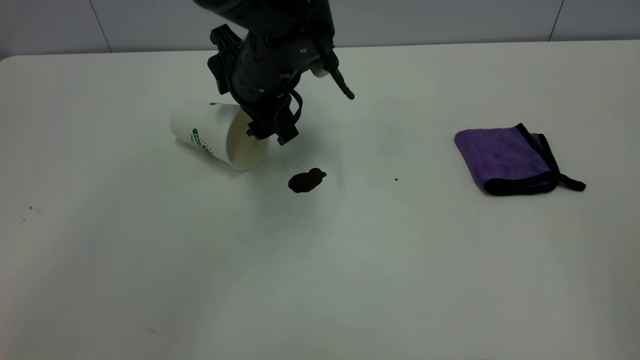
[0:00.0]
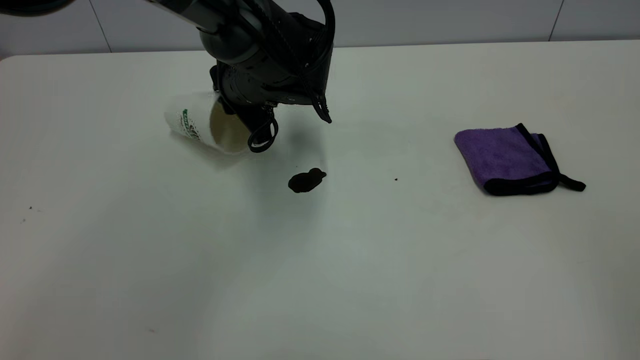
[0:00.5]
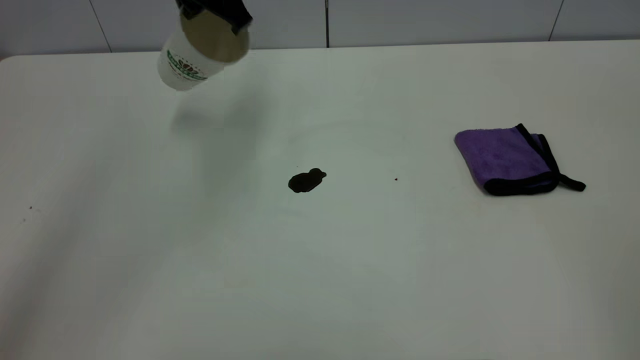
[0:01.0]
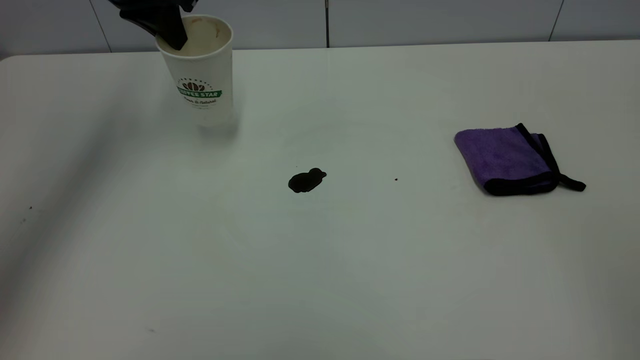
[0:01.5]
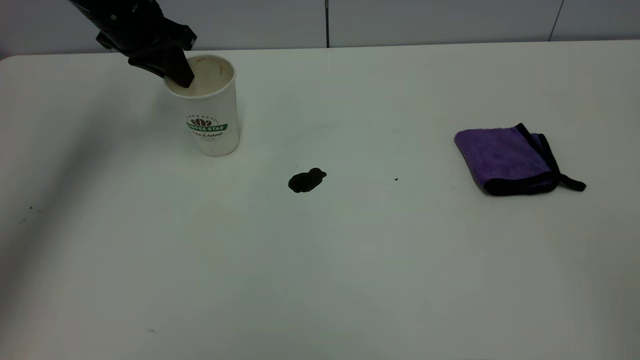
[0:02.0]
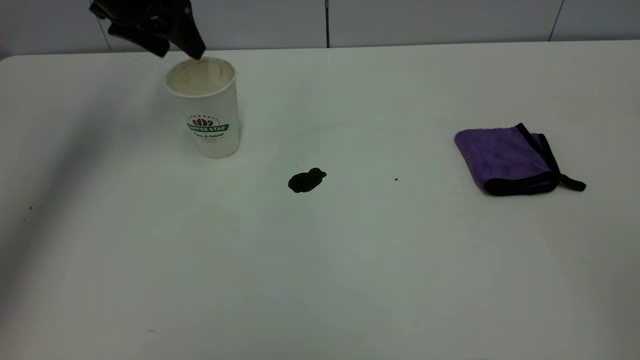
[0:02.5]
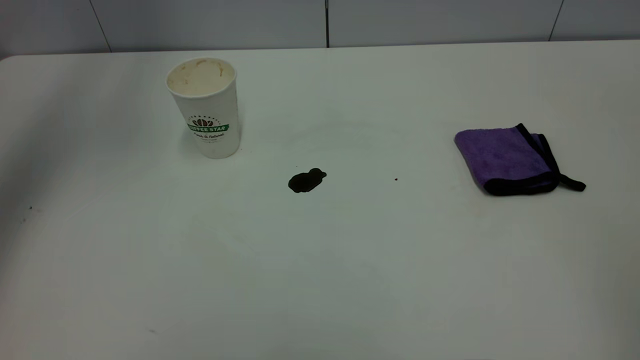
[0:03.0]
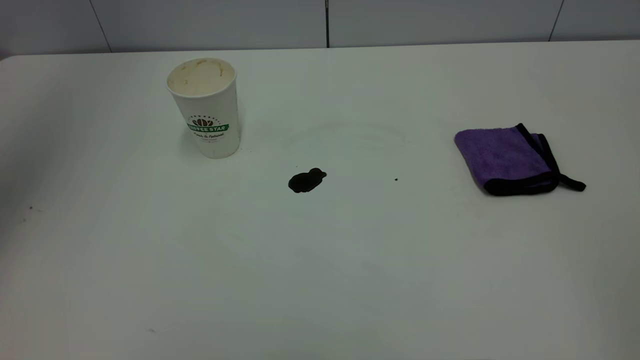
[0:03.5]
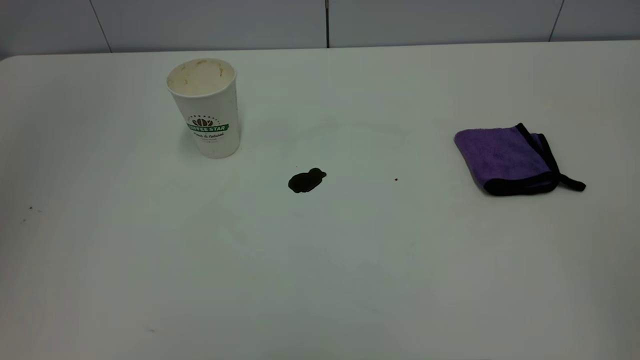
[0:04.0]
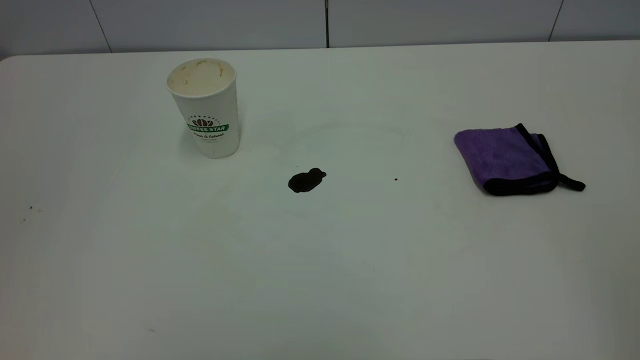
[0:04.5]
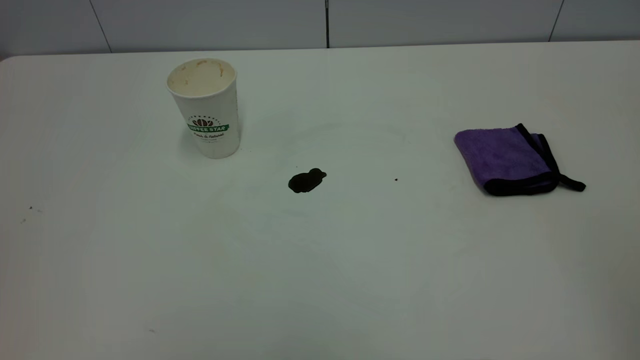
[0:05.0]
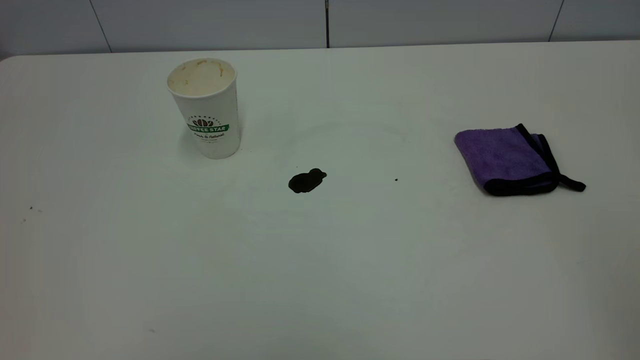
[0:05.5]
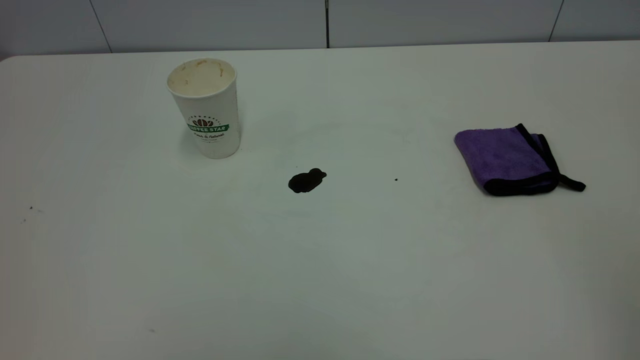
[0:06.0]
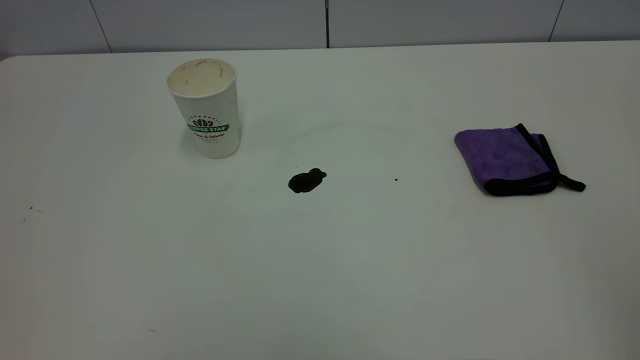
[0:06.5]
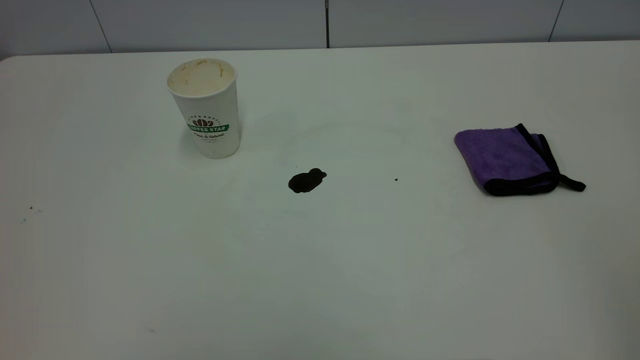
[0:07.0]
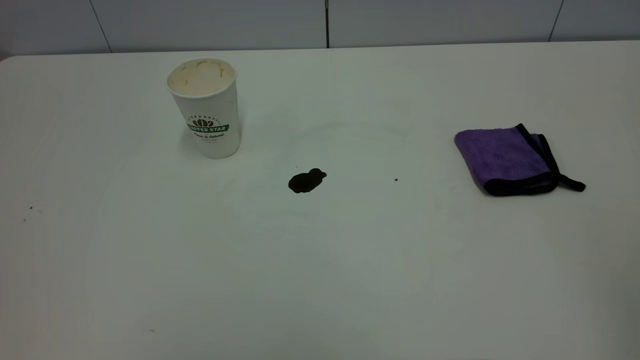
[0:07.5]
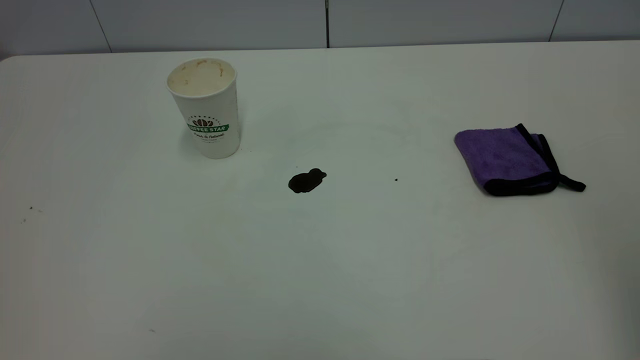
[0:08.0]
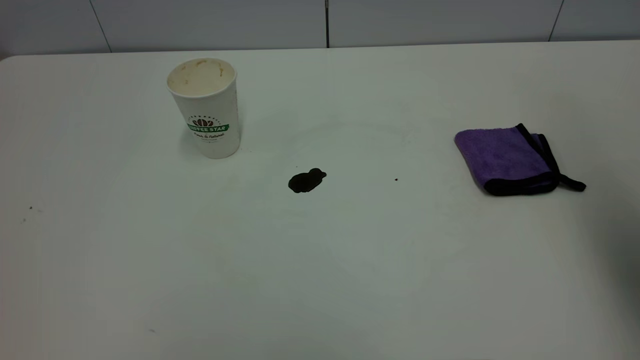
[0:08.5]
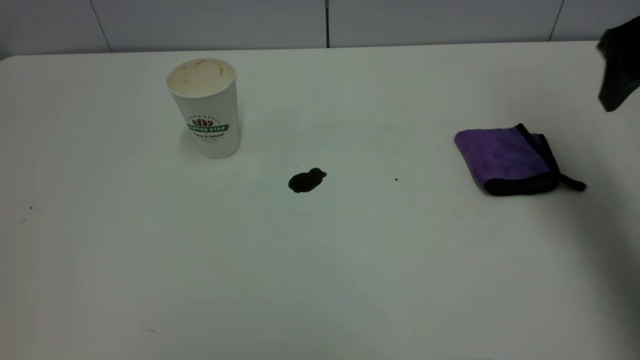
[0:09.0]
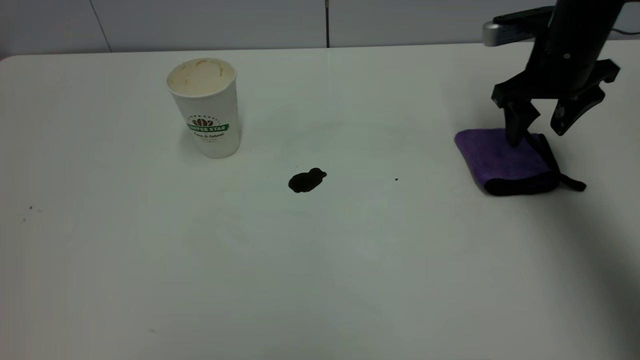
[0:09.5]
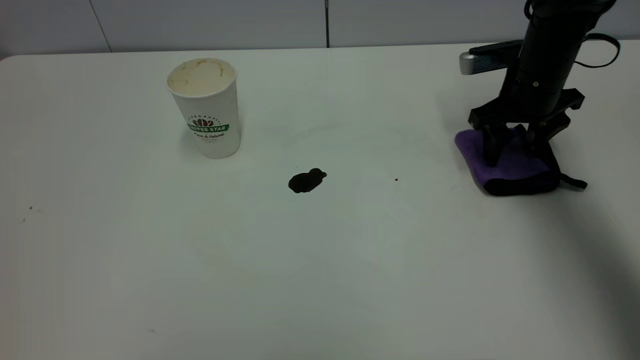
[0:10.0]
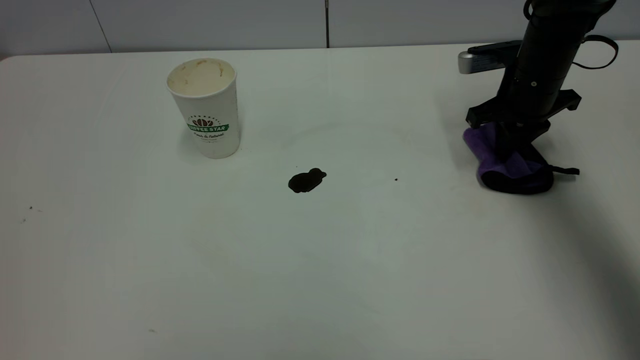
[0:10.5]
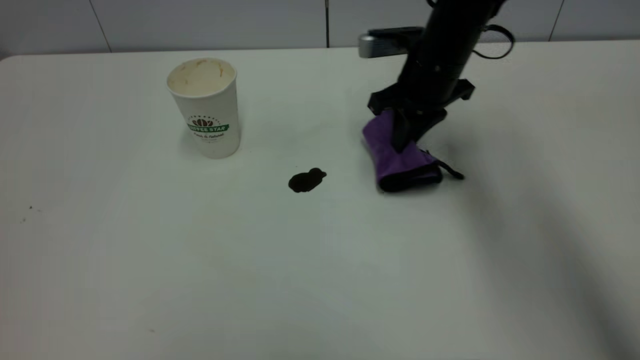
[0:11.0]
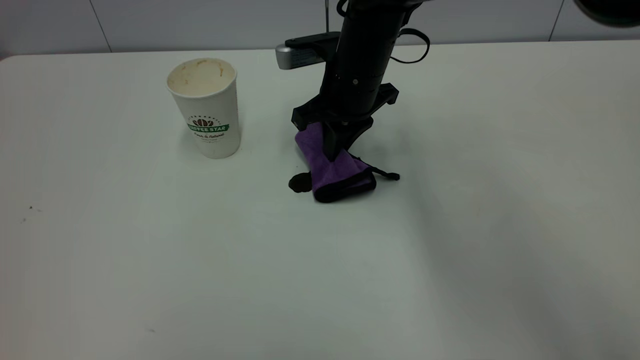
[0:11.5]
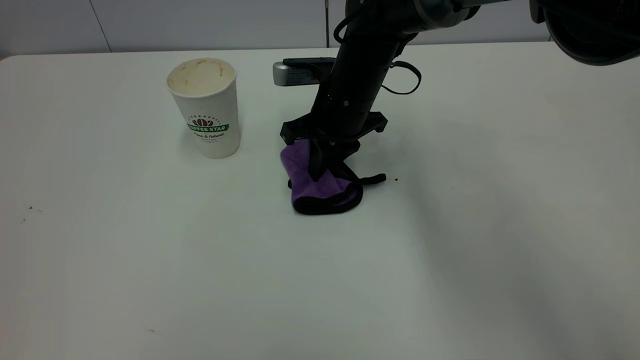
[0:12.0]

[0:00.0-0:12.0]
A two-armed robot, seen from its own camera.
Task of the whole recording: the left gripper pick up the fallen cup and place it upright, the right gripper grasp the purple rag and wipe the coffee stain on the table, the right gripper put the purple rag back in its original position.
Step, 0:00.0 to 0:02.0: Stand the paper cup upright.
0:00.0 to 0:02.0: The left gripper heads to the left and forward, covering approximately 20 cm, and closes.
0:02.0 to 0:04.0: The left gripper is displaced upward and backward by about 40 cm, and opens and closes again.
0:08.0 to 0:10.0: The right gripper is displaced forward and downward by about 50 cm.
0:10.0 to 0:12.0: The right gripper goes about 20 cm to the left, and closes its fingers.

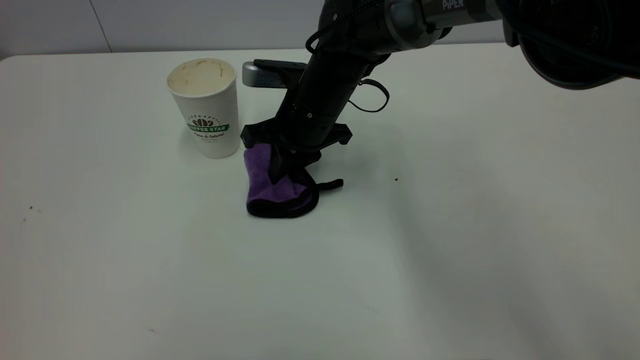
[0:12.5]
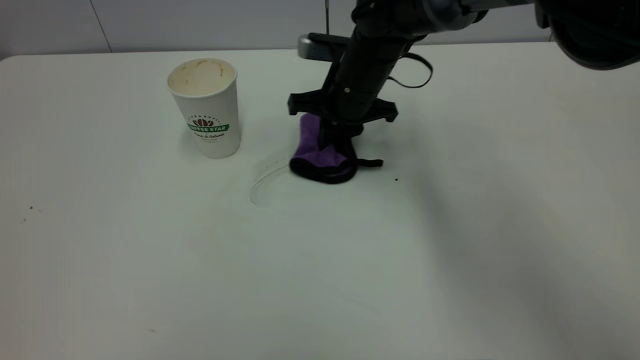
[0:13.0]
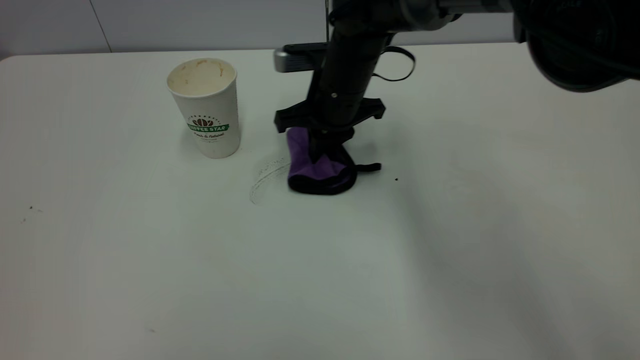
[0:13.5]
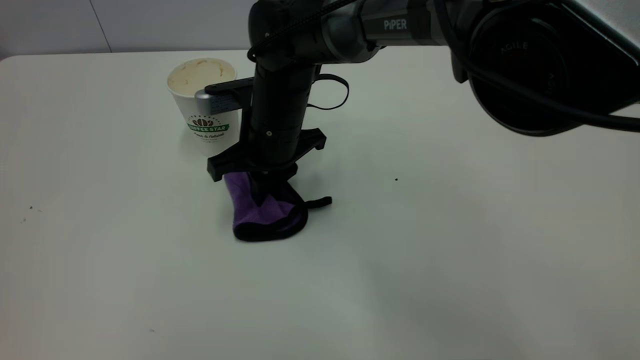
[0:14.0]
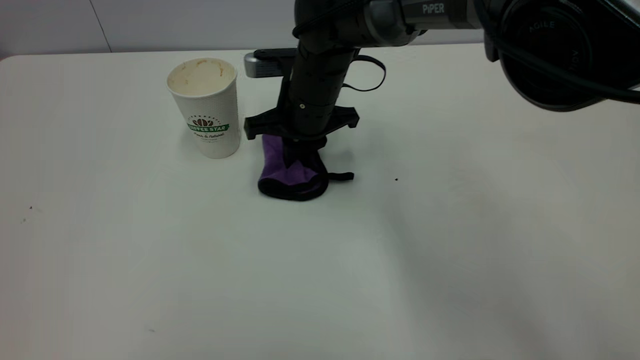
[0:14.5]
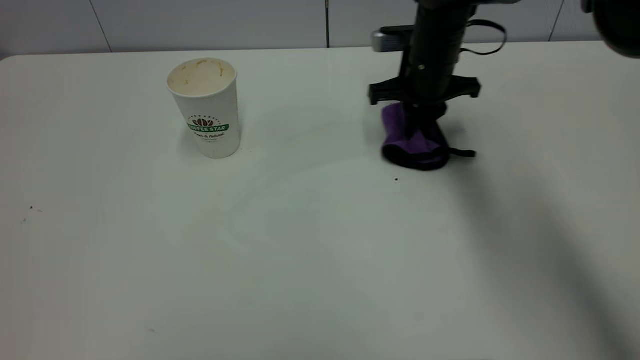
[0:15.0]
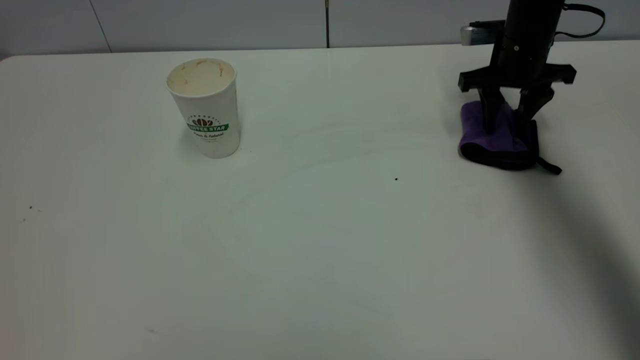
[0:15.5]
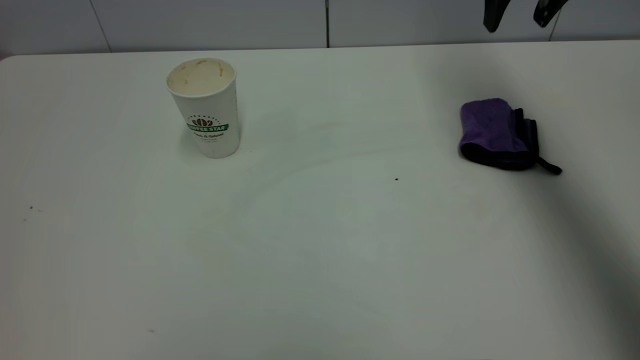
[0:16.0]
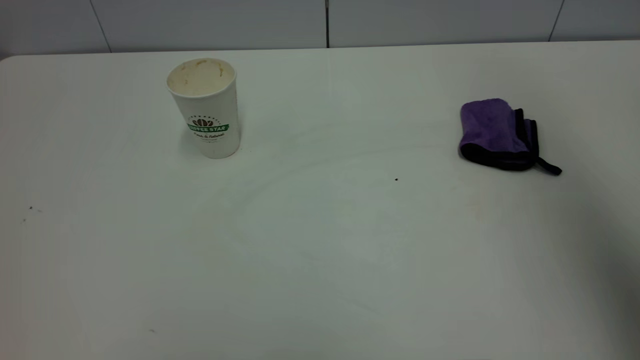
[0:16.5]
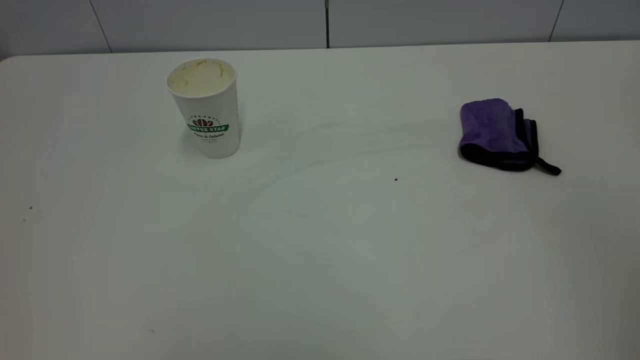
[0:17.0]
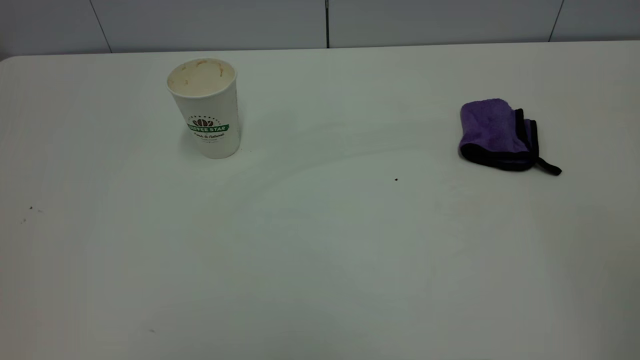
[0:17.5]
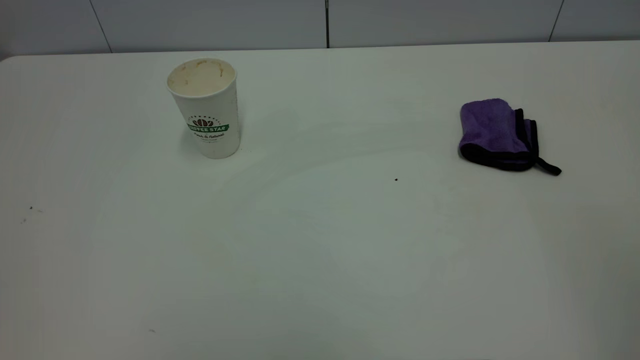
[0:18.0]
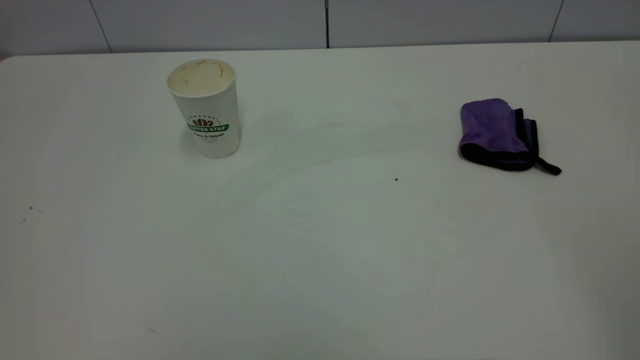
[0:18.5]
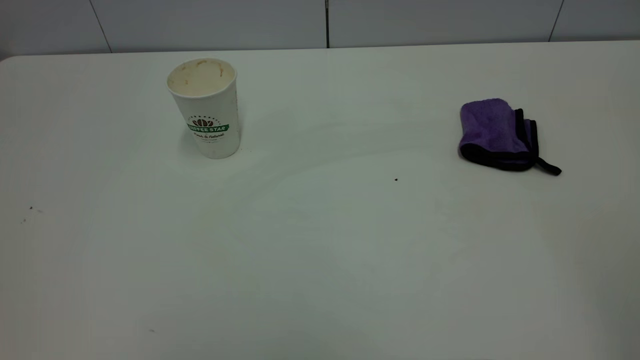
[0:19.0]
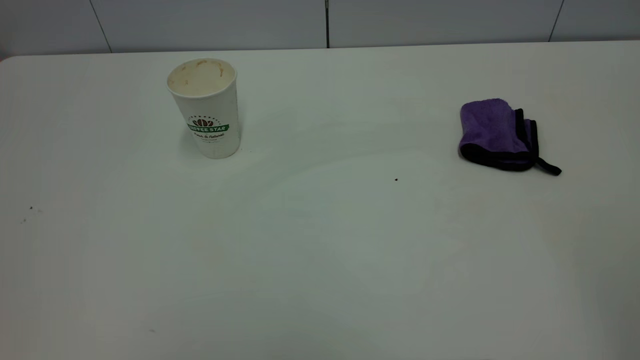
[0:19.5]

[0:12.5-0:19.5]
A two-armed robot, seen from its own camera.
Task of the whole recording: the left gripper pick up the fallen cup and place it upright, the right gripper grasp the purple rag and wipe the coffee stain on the table, the right gripper put the purple rag back in its original position.
Step, 0:12.5 to 0:15.5: Wipe the stains off the table with a rag.
0:12.5 to 0:14.5: The right gripper moves left and right over roughly 10 cm, changing direction 2 times.
0:14.5 to 0:16.0: The right gripper goes about 30 cm to the right and upward, and opens its fingers.
0:16.0 to 0:17.5: The right gripper goes roughly 50 cm backward.

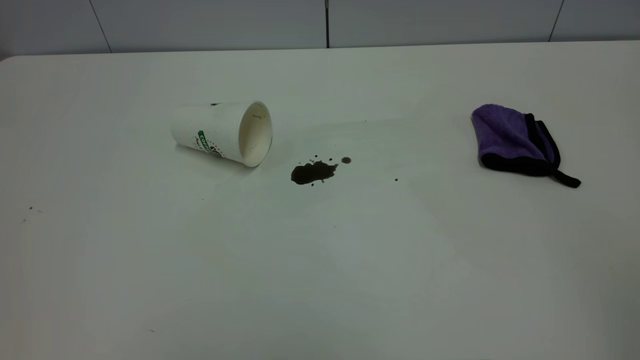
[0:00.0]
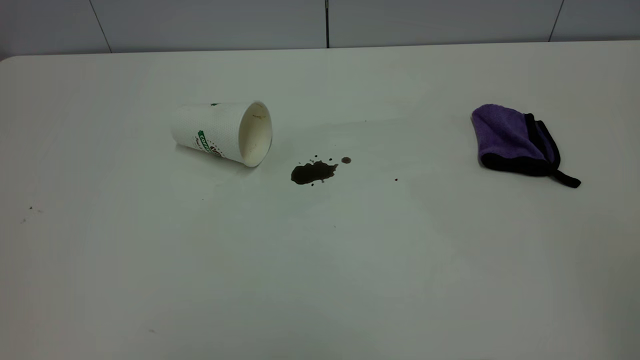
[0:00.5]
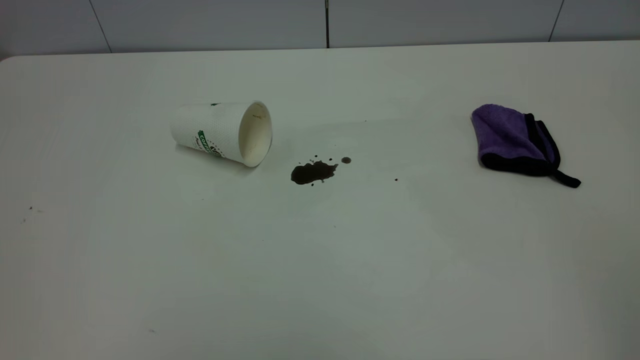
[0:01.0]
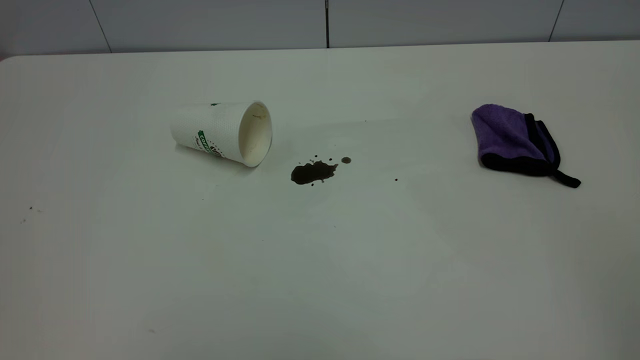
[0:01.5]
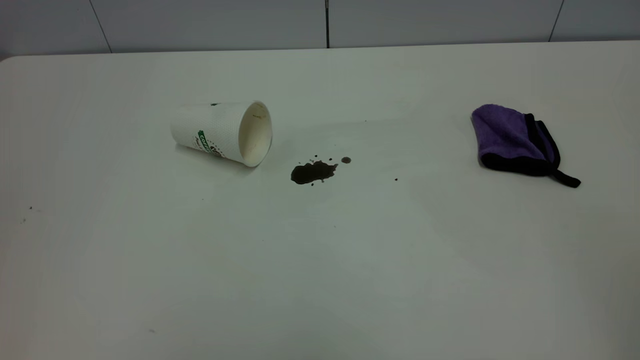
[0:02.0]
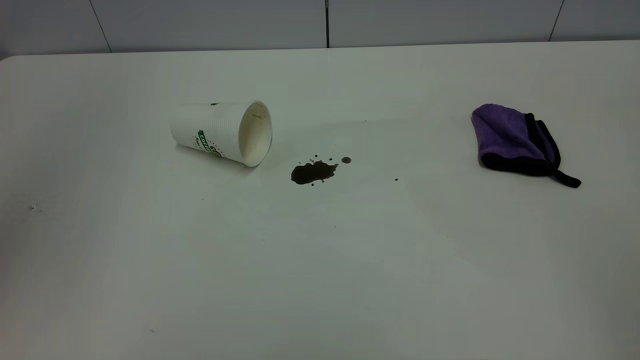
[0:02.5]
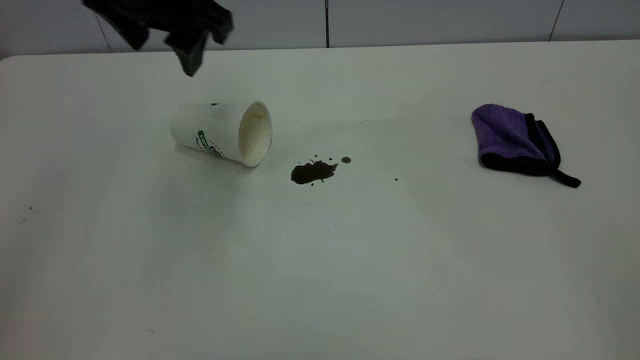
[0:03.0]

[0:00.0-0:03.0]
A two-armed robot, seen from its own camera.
Task of the whole recording: the left gripper pick up the fallen cup and place it upright, the right gripper grasp the purple rag and wipe the coffee stain on the table, the right gripper put the purple rag back in its original position.
0:00.0 to 0:01.5: The two grippers keep their place.
0:01.5 to 0:03.0: The left gripper is displaced forward and to the right by roughly 40 cm, and opens its fingers.
